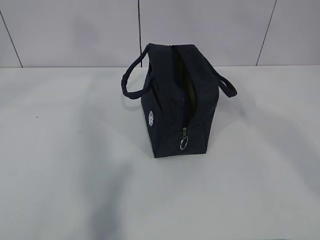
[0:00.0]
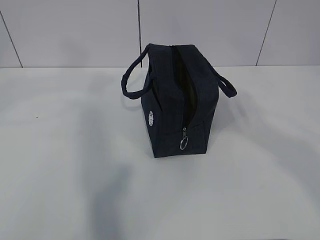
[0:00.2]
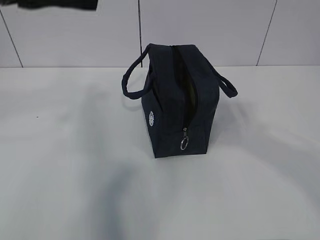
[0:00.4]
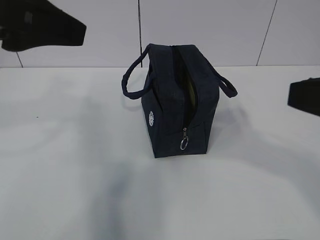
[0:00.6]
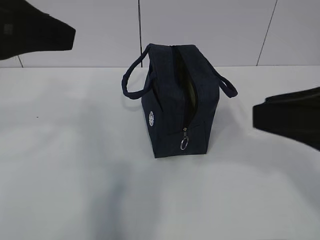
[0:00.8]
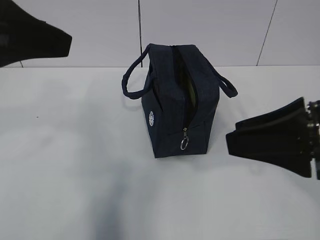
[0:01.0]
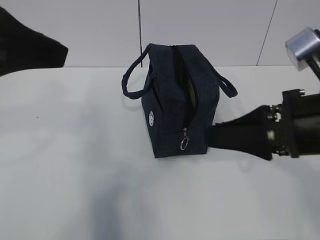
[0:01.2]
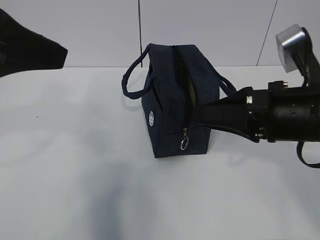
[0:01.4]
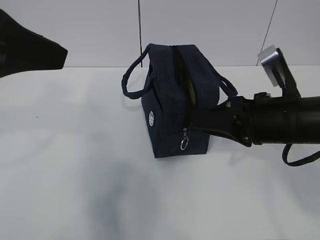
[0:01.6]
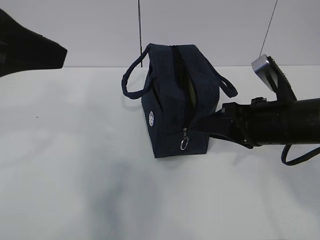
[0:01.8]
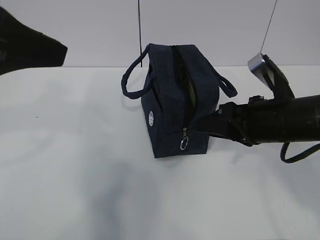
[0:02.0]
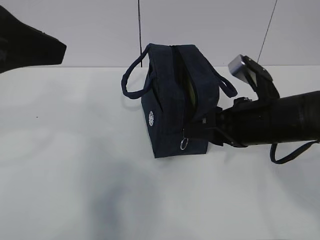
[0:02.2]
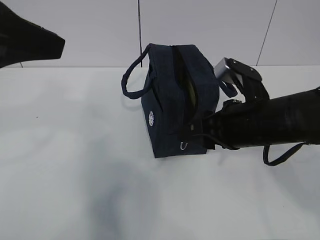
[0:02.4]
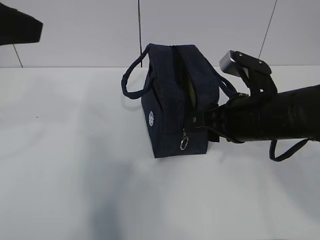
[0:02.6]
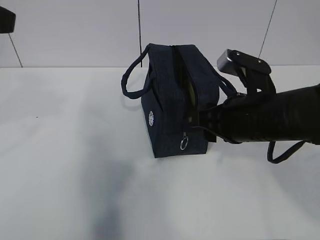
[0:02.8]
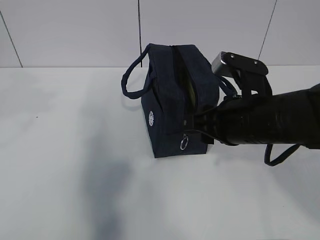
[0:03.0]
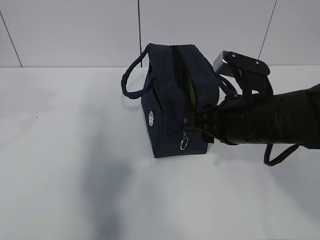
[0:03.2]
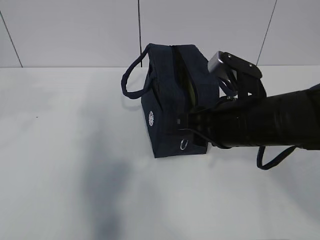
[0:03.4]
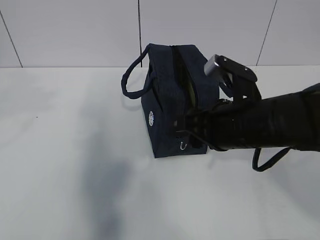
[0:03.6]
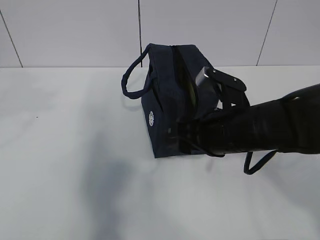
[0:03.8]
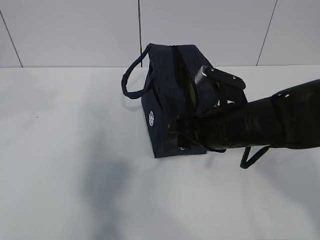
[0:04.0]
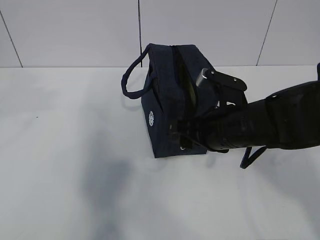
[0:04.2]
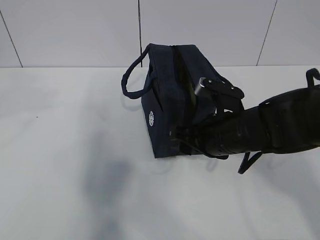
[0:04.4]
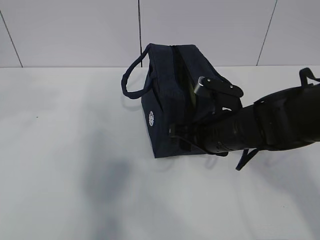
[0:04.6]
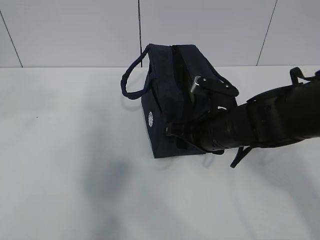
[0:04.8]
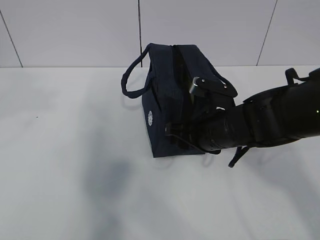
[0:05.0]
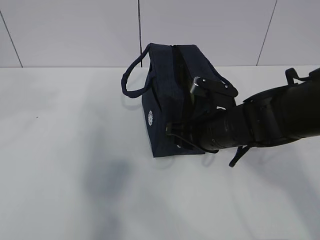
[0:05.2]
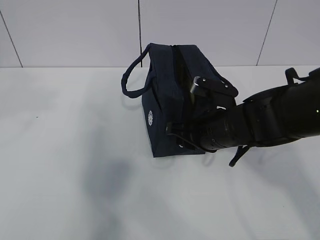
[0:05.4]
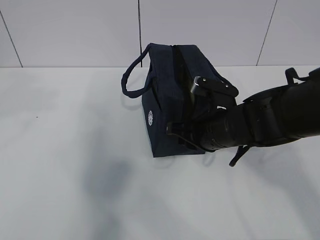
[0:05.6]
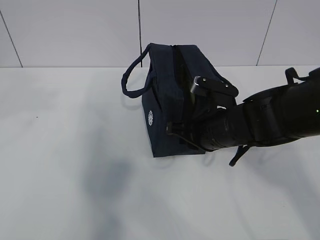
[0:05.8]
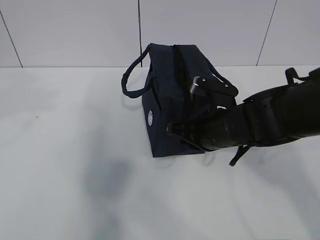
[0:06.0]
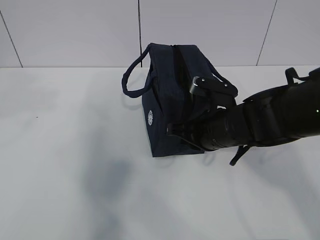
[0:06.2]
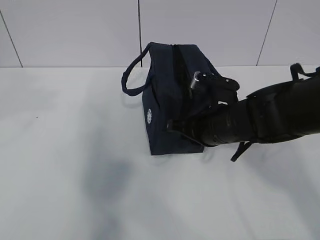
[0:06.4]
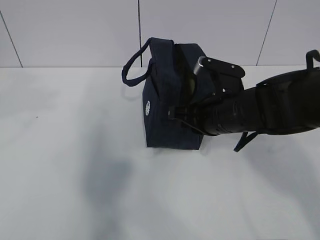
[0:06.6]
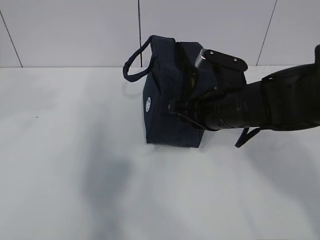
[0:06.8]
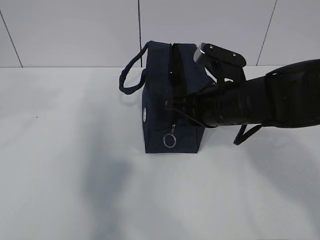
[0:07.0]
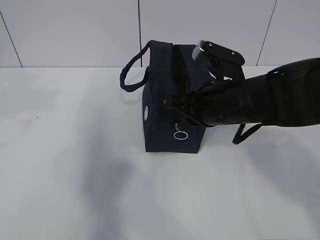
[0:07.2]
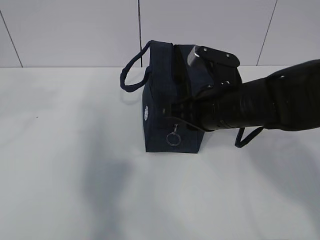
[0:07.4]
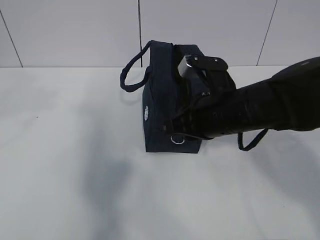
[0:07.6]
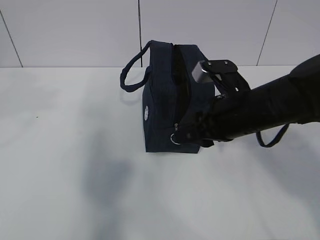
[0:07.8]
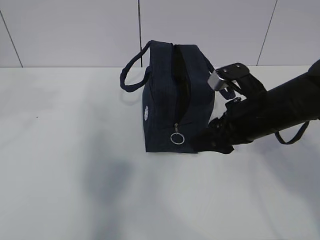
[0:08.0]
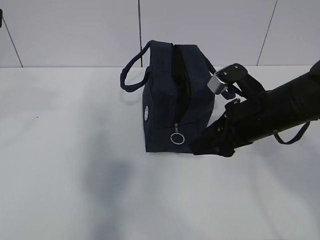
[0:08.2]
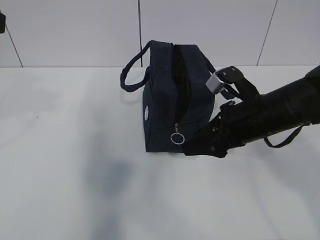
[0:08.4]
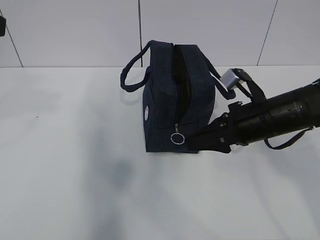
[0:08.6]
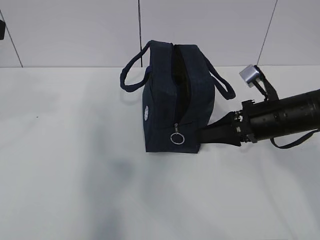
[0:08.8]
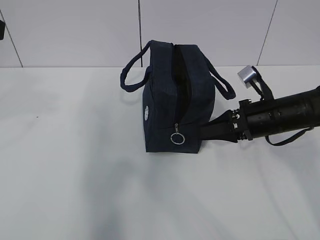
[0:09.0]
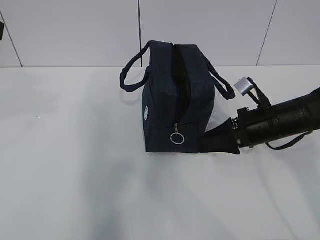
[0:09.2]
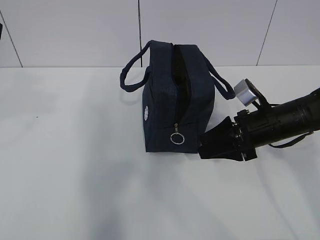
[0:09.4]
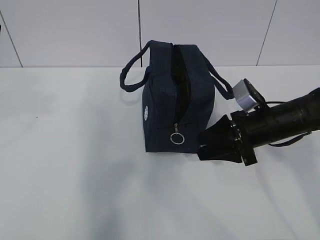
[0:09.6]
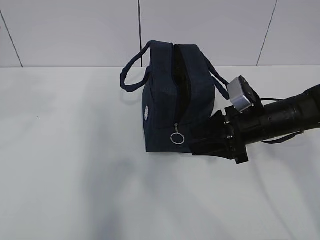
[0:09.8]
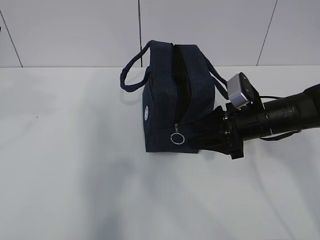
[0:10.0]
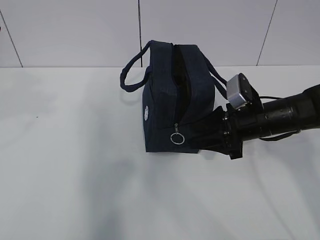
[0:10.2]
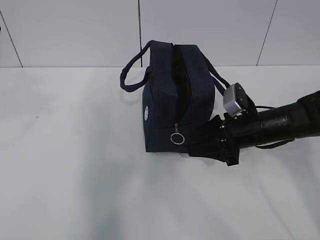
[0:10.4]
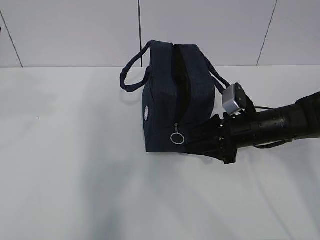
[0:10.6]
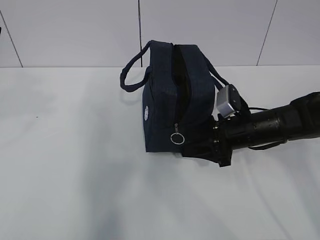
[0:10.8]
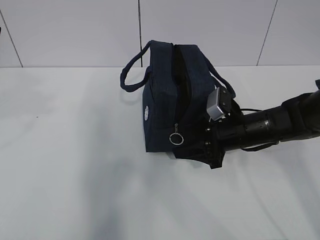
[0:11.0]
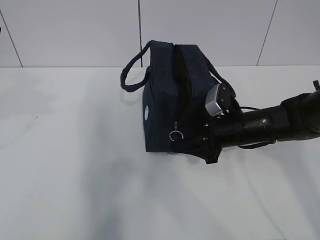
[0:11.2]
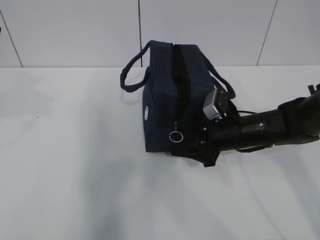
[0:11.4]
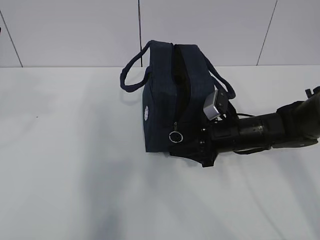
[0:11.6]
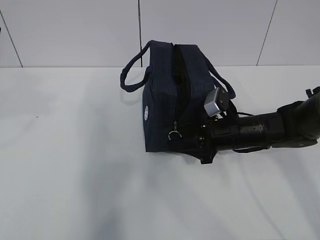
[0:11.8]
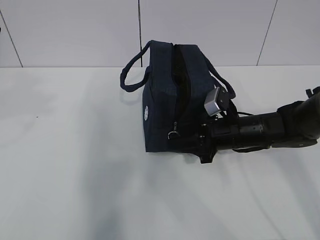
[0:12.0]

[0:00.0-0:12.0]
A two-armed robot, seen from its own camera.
Step, 0:00.0 to 0:09.8: Grab the lunch bag with your left hand.
0:00.0 to 0:01.6: The left gripper shifts approximately 15 cm downward, backward and to the left. Meanwhile the right gripper travels downward and forward by about 25 cm.
0:01.6 to 0:03.0: The left gripper is displaced to the left by approximately 5 cm.
0:03.0 to 0:04.4: The right gripper is displaced downward by about 5 cm.
0:04.4 to 0:06.0: The right gripper closes its fingers.
0:06.0 to 0:07.6: The right gripper heads upward, covering roughly 5 cm.
0:07.6 to 0:09.0: The right gripper moves to the right, downward and forward, about 15 cm, and opens up.
0:10.4 to 0:12.0: The grippers move only a little.

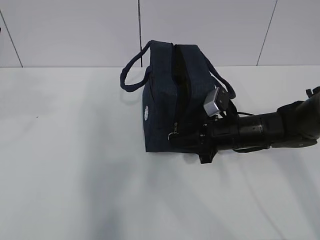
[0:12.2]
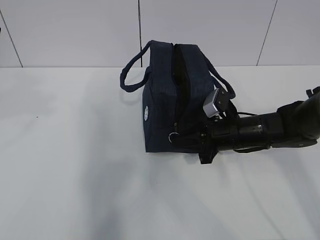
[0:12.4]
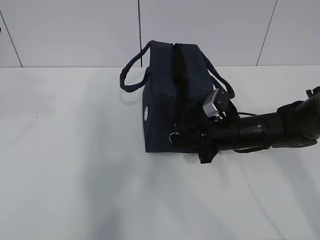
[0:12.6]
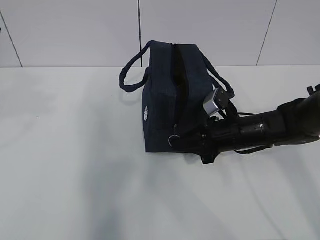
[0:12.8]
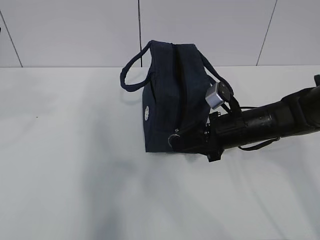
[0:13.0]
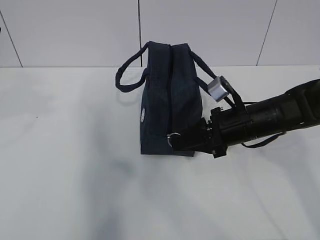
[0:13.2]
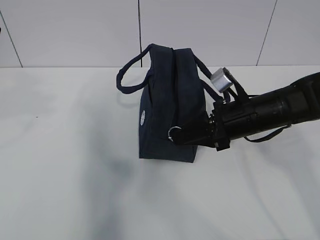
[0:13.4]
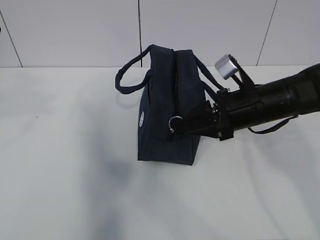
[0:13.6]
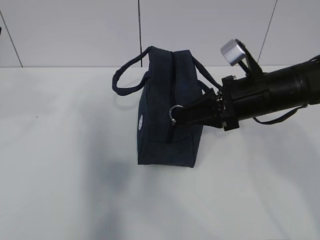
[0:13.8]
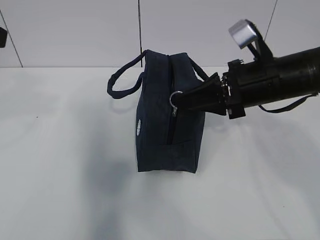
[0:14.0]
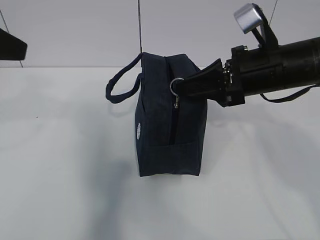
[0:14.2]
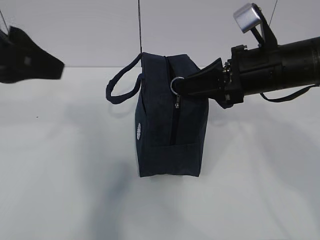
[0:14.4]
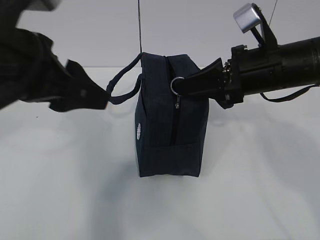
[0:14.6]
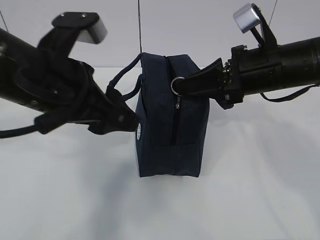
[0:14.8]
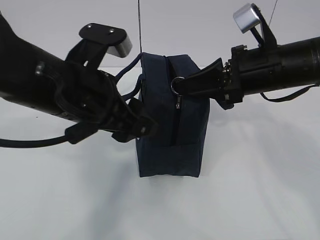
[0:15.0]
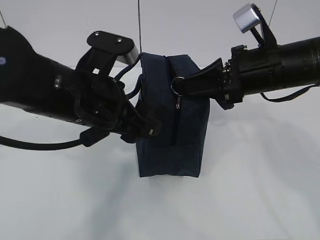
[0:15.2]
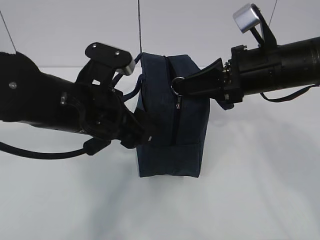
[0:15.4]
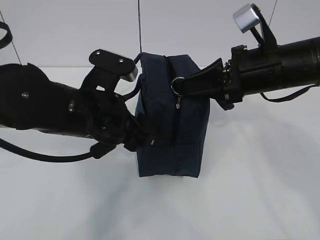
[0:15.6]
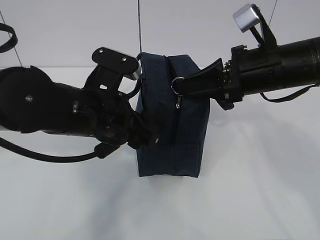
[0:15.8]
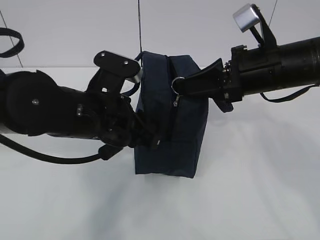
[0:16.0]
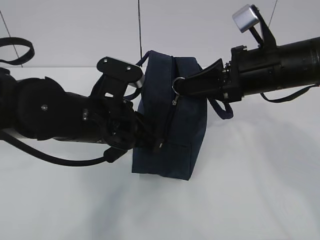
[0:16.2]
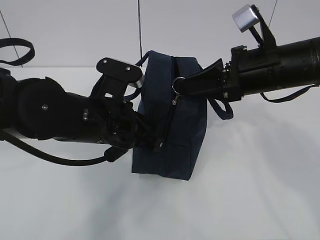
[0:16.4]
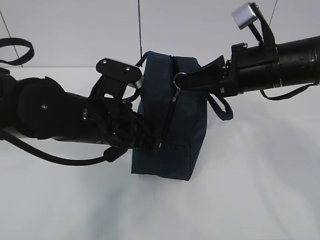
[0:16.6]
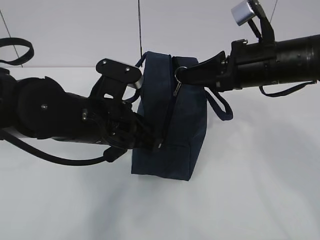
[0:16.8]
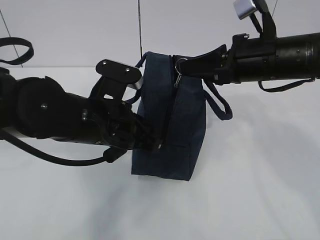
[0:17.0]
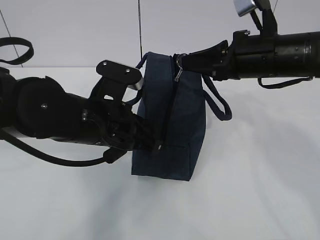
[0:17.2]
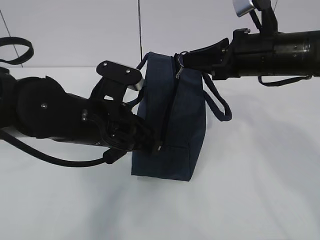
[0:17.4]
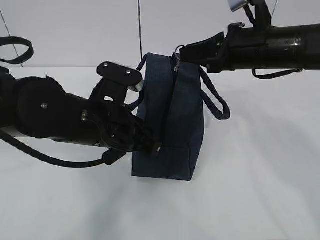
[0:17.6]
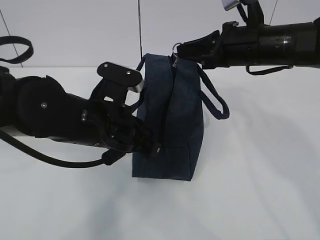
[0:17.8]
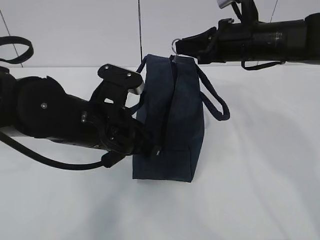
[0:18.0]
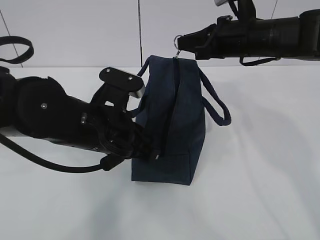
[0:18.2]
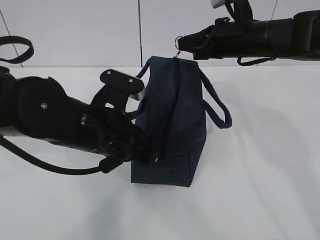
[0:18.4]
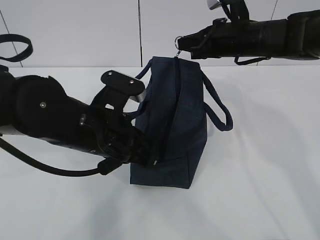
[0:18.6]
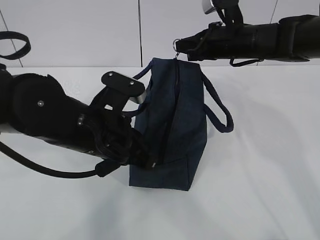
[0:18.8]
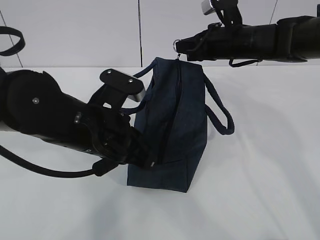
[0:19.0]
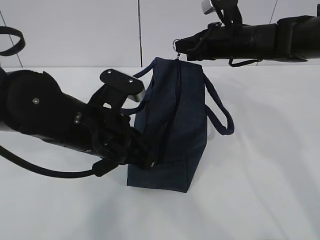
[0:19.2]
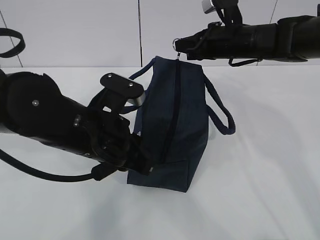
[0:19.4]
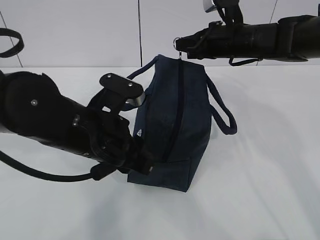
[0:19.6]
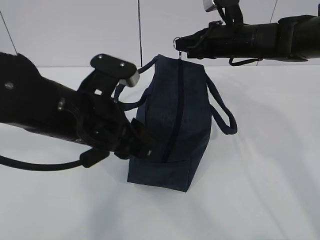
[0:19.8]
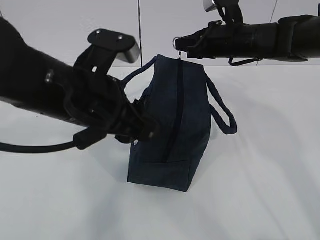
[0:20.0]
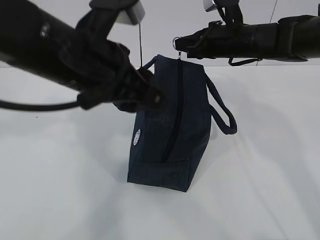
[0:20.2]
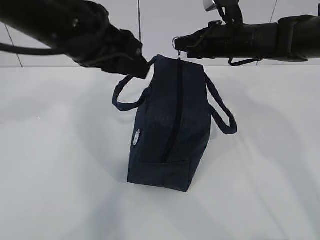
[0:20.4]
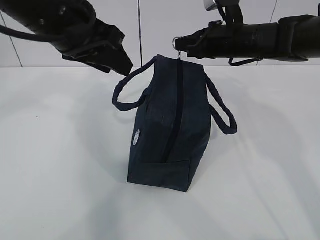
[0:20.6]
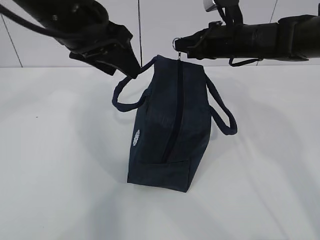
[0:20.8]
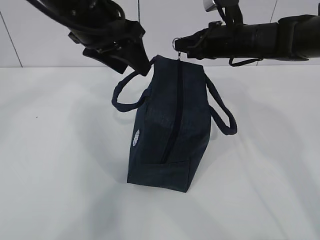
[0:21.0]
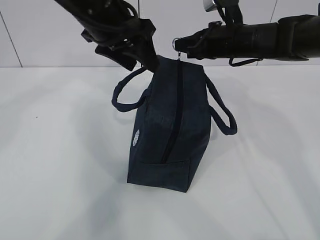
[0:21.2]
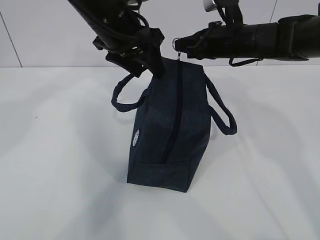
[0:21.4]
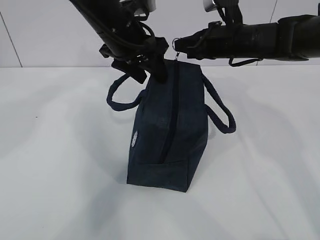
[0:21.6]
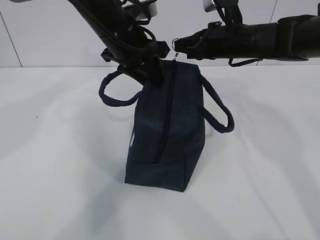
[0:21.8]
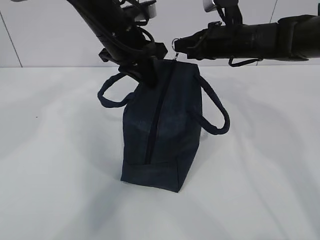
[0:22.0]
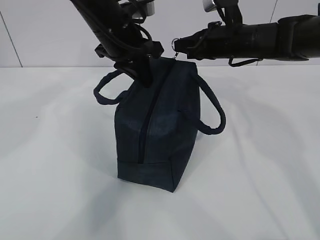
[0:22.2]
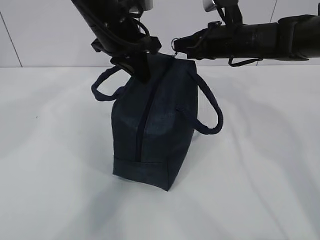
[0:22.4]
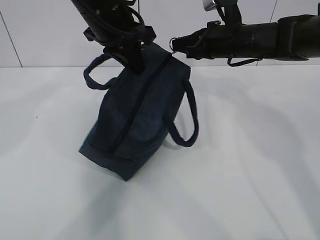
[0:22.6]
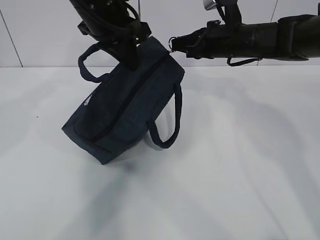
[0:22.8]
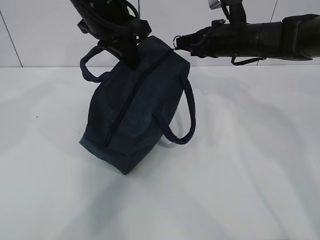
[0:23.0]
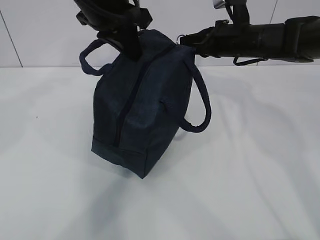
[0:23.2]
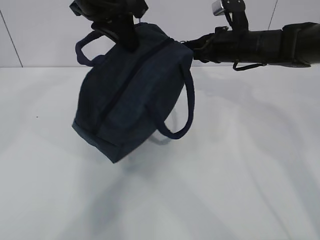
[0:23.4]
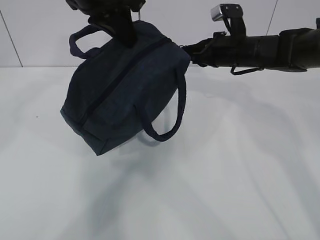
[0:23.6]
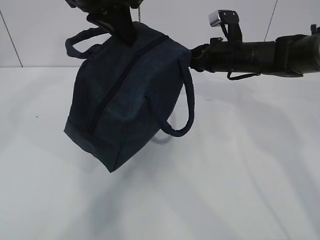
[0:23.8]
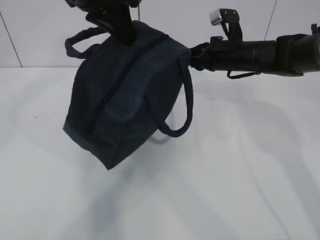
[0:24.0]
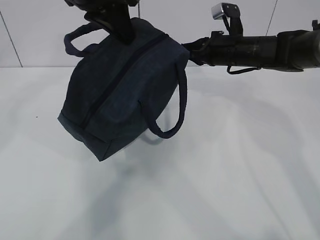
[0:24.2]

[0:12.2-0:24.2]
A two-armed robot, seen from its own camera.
Step, 0:13.8 to 0:15.2: Grab the lunch bag with your left hand.
0:12.2 to 0:13.8: The right gripper travels upward by roughly 10 cm.
0:13.8 to 0:15.2: The left gripper shifts about 20 cm to the right and downward.
0:15.2 to 0:16.6: The left gripper closes.
0:16.6 to 0:18.2: The right gripper shifts approximately 10 cm forward.
0:18.2 to 0:19.8: The left gripper opens up. The right gripper ends up roughly 5 cm from where it was.
0:19.8 to 0:21.2: The left gripper goes some 15 cm forward and upward.
0:21.2 to 0:22.6: The left gripper closes its fingers.
0:22.6 to 0:24.2: The left gripper is displaced upward by approximately 5 cm.
